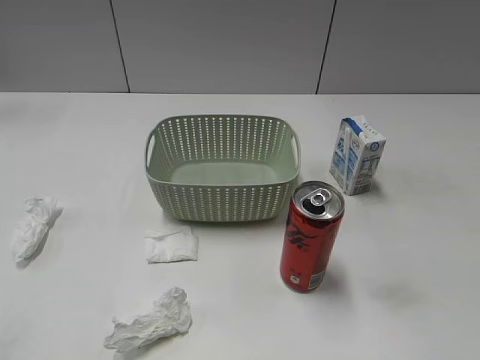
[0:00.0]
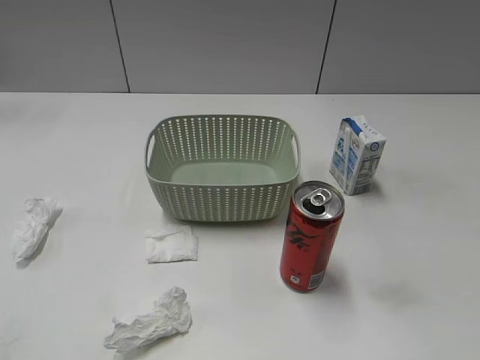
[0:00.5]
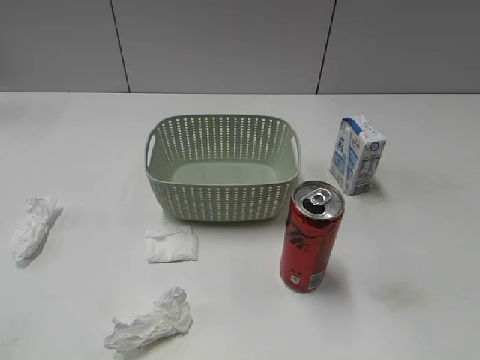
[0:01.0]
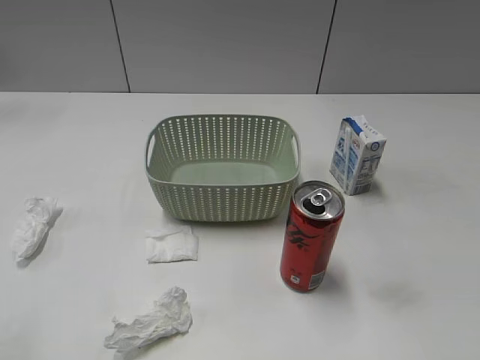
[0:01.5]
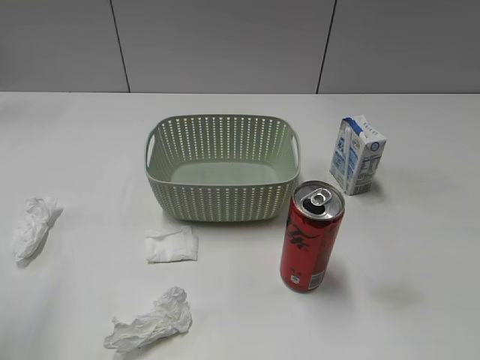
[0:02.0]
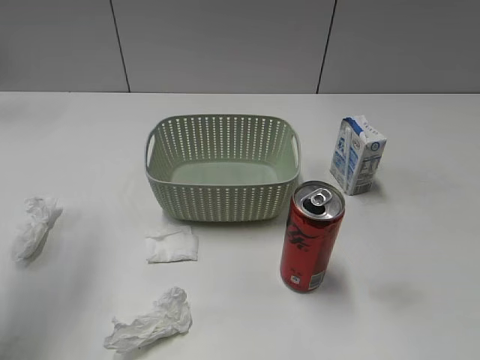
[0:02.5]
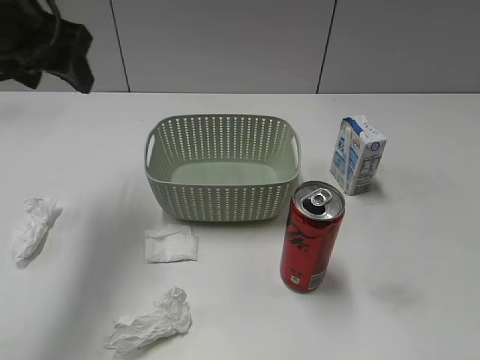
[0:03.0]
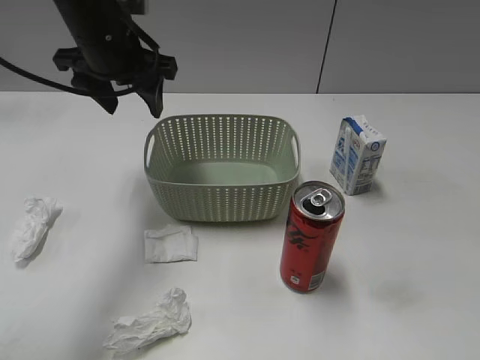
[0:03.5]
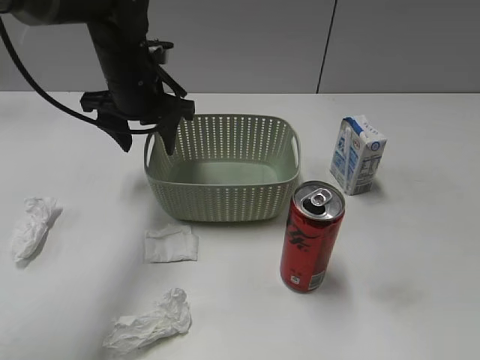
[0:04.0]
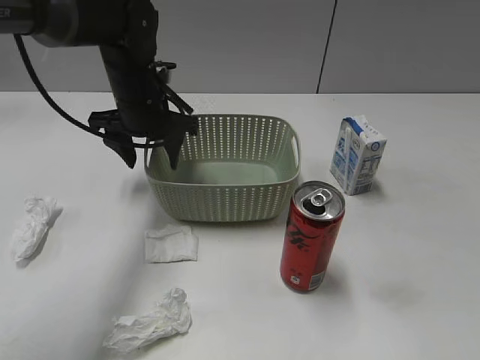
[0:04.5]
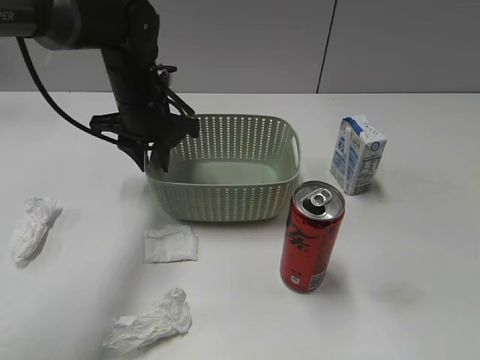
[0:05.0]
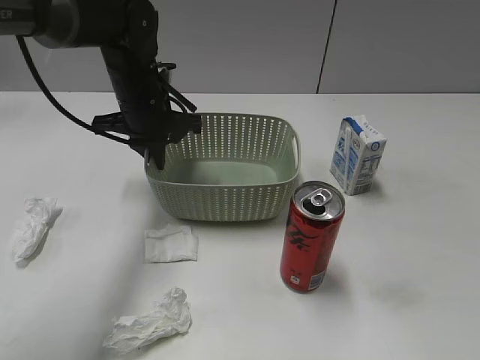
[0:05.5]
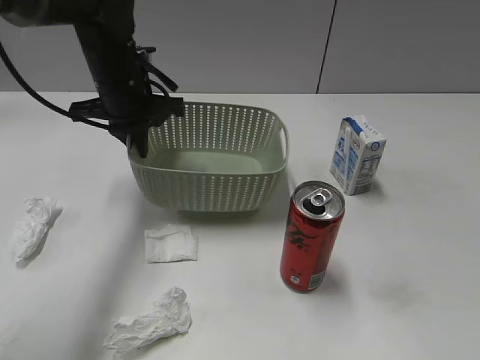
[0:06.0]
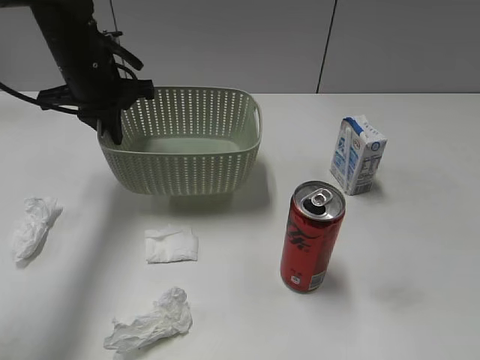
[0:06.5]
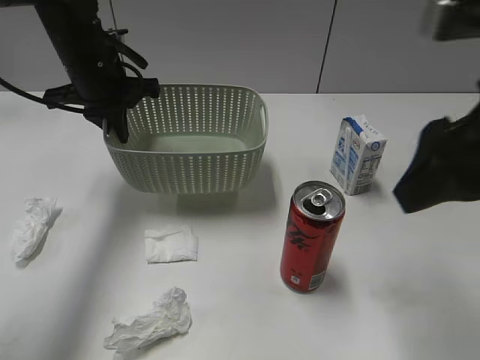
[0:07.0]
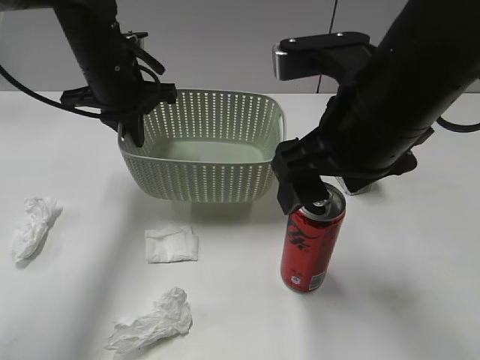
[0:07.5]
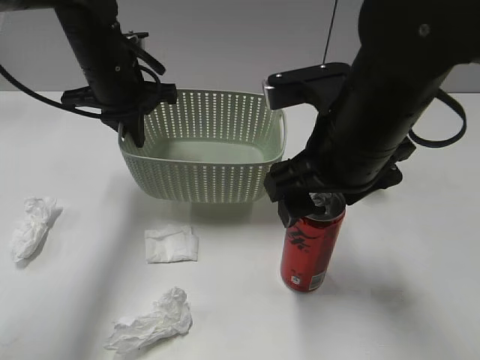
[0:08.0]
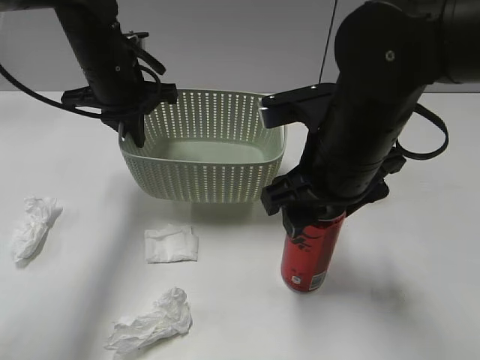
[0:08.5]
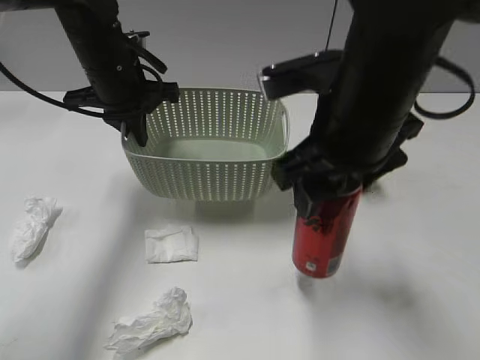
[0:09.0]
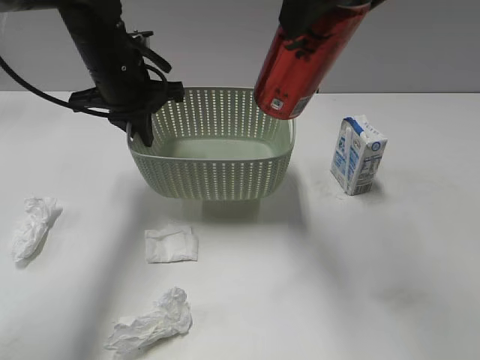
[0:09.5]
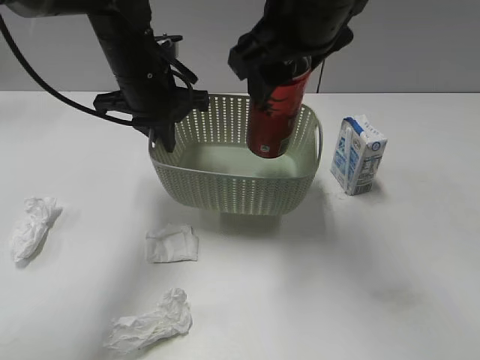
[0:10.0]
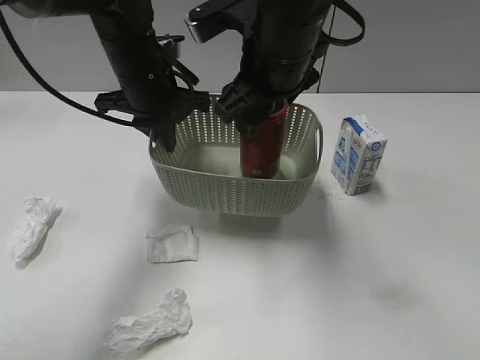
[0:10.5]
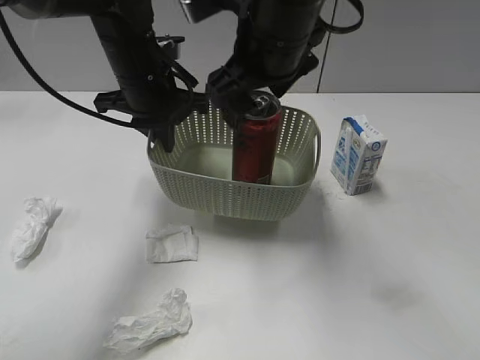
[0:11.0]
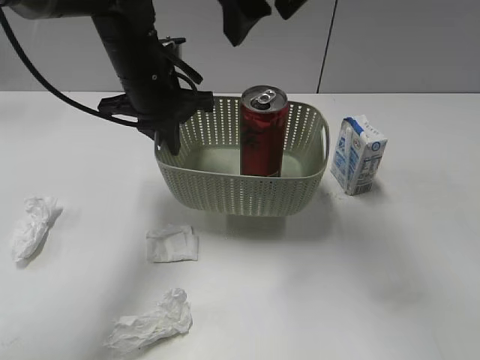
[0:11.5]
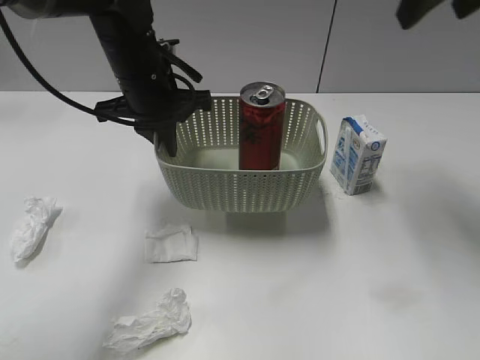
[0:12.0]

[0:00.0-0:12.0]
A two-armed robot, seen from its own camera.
Step, 0:02.5 to 0:05.0: Grasp the basket with left gripper.
Step, 0:05.5 to 0:06.5: Lift the basket with left gripper.
Step, 0:07.0 to 0:08.5: Grasp the cola can with right gripper.
Step, 0:09.0 to 0:11.0: Place the cola can in the basket with right gripper.
0:02.0 to 0:04.0: The left gripper is displaced forward, to the right and downward by some 35 cm.
0:04.0 to 0:06.0: The left gripper closes.
0:06.0 to 0:08.0: The right gripper shifts approximately 30 cm forward and to the left, and opens up.
0:08.0 to 0:10.0: The right gripper goes about 10 cm upward and forward, and closes its fingers.
0:10.0 to 0:12.0: The right gripper shifts about 15 cm to the right, and opens.

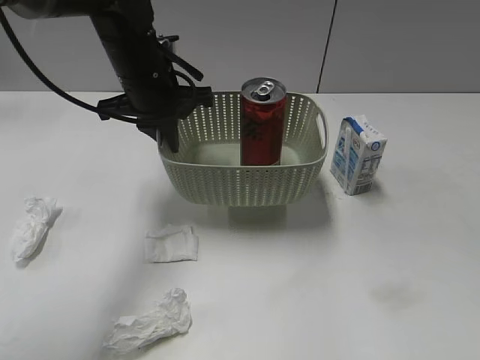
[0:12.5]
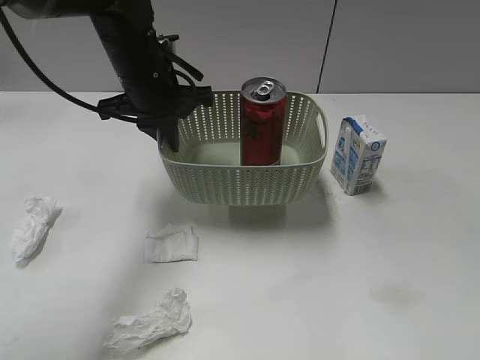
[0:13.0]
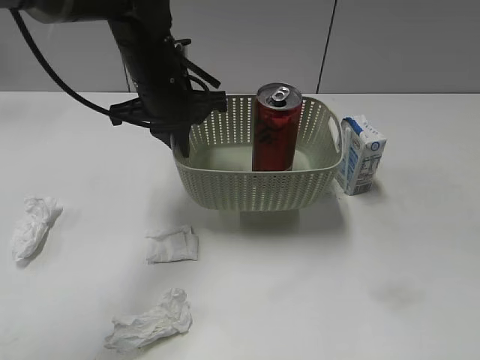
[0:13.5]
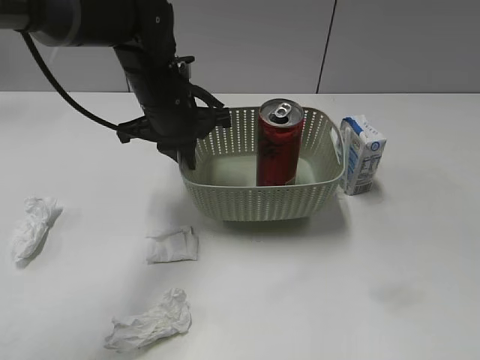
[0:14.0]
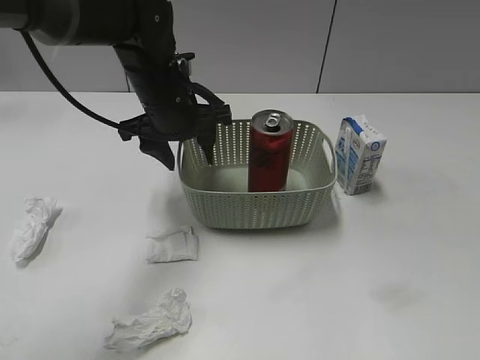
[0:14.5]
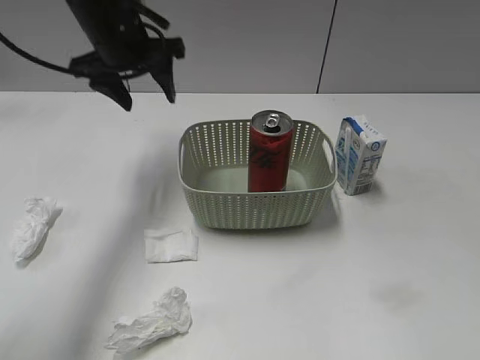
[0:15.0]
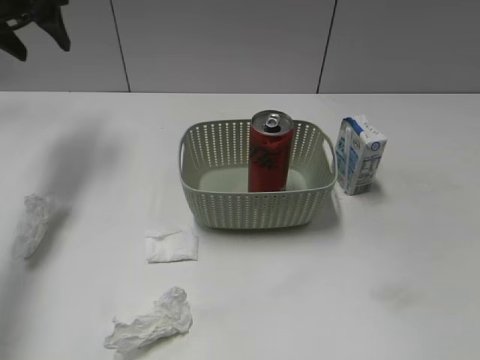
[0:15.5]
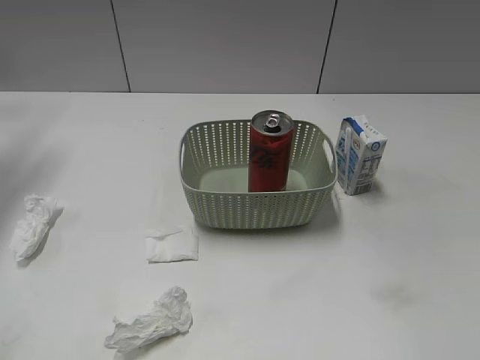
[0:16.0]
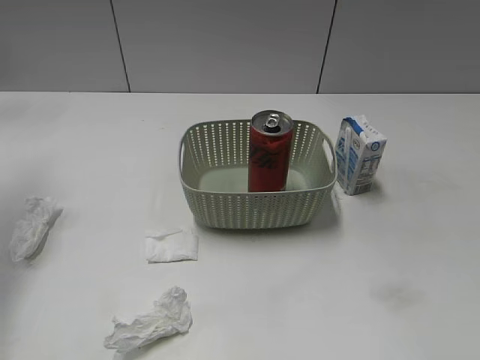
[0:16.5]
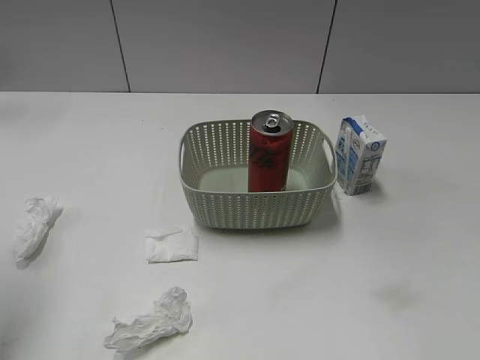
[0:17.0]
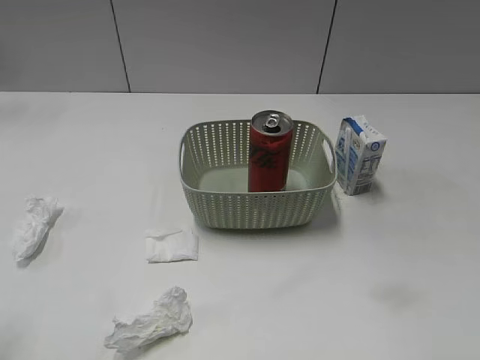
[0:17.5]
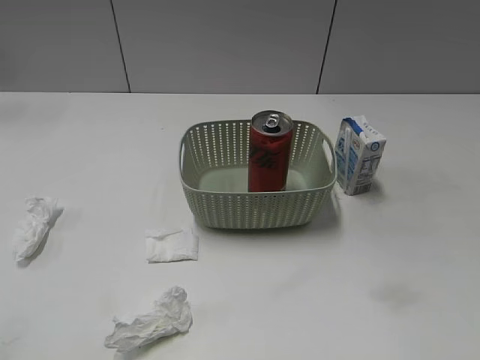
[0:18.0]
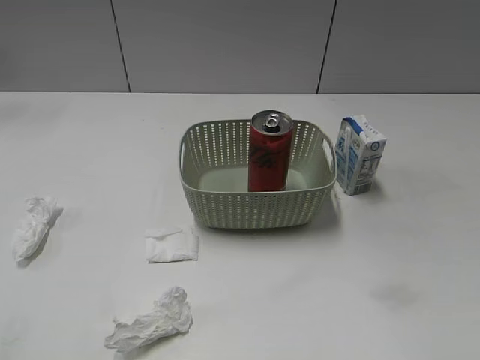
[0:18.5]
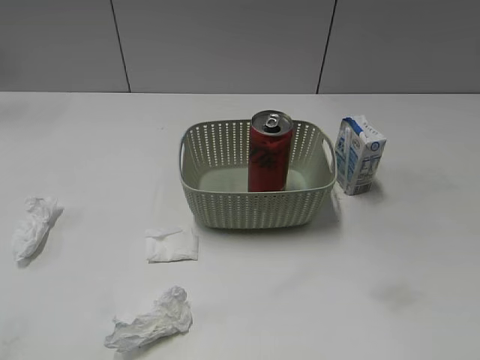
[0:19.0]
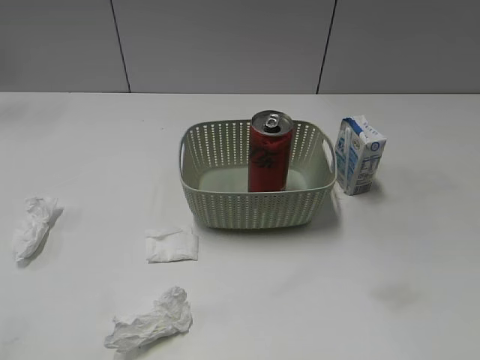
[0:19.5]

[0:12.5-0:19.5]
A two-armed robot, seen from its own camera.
Step, 0:12.5 to 0:14.5: Place the basket on the table with left gripper.
0:12.5 to 0:14.5: The left gripper opens. Meanwhile the right gripper is displaced backward and downward by about 20 cm.
0:14.5 to 0:16.0: The left gripper heads to the left and upward, covering some 30 cm.
0:16.0 to 0:17.5: The left gripper moves backward, approximately 35 cm.
